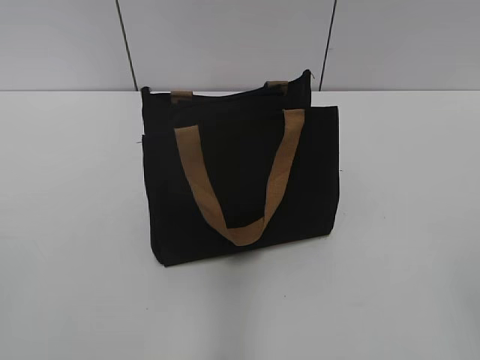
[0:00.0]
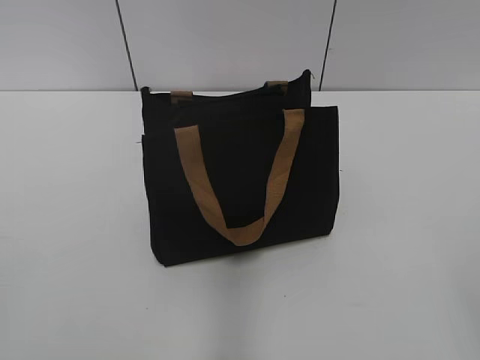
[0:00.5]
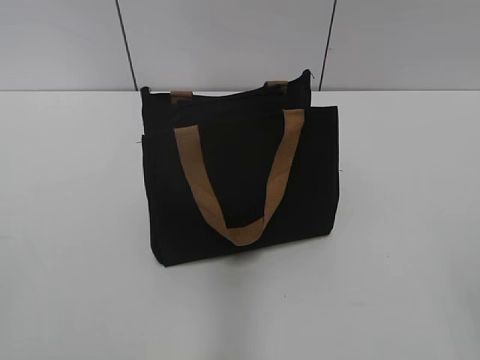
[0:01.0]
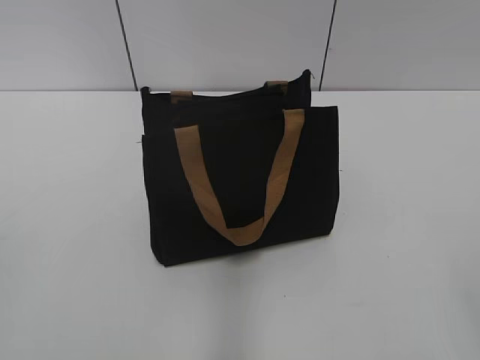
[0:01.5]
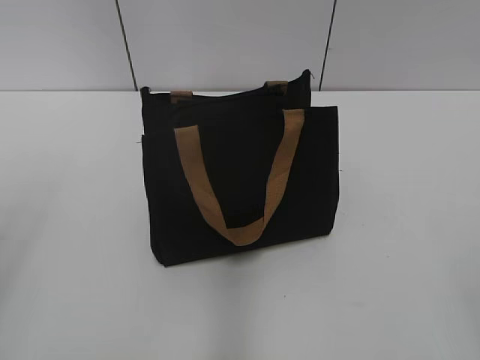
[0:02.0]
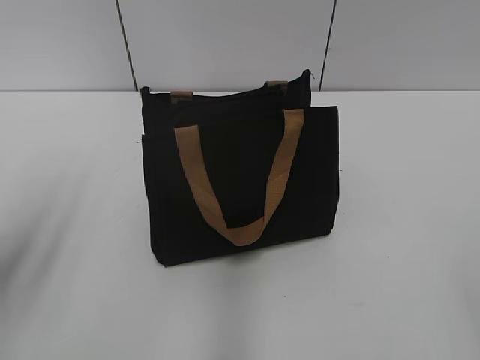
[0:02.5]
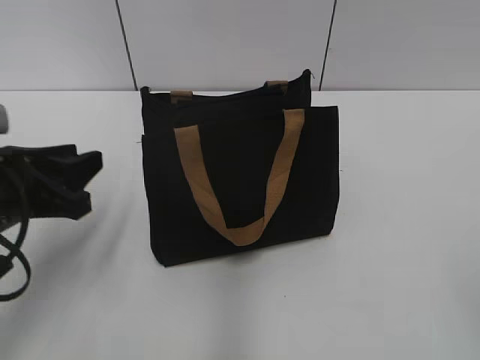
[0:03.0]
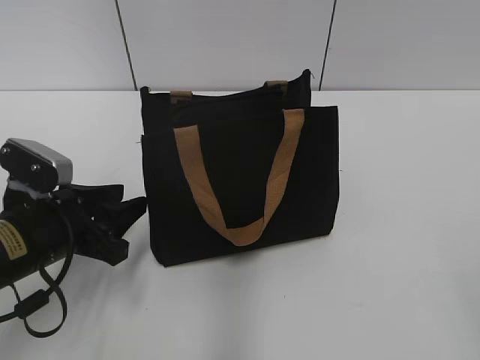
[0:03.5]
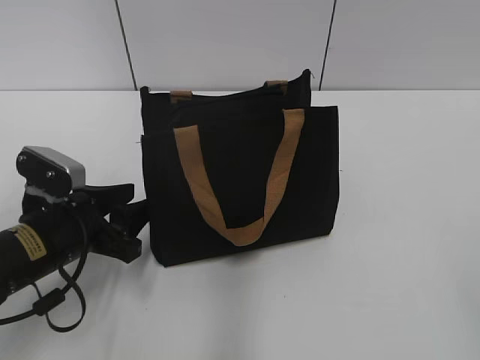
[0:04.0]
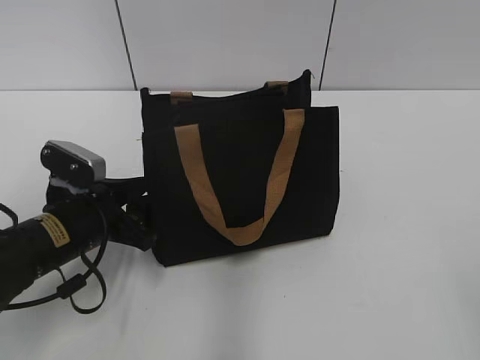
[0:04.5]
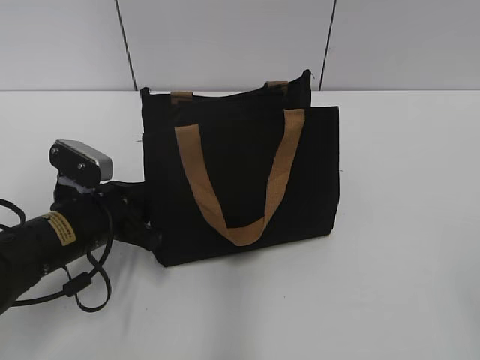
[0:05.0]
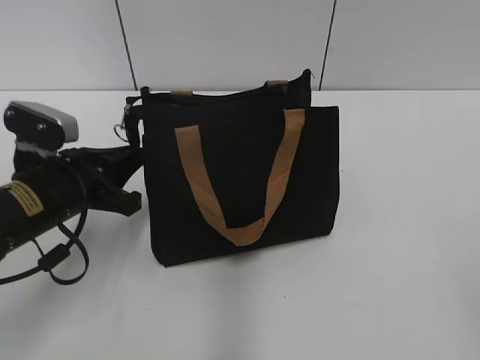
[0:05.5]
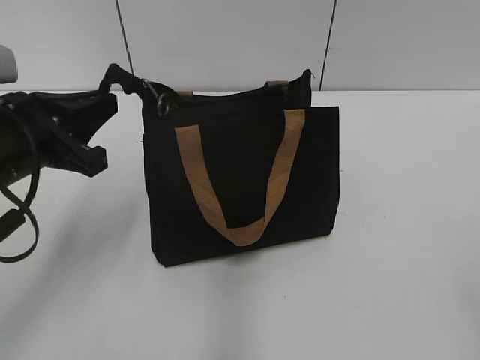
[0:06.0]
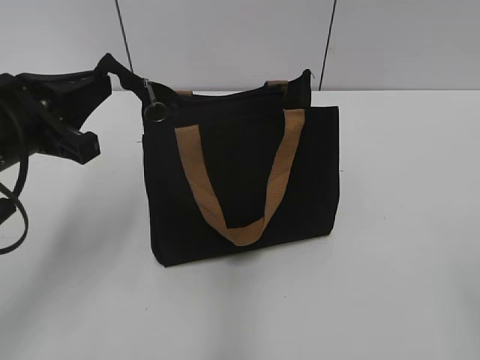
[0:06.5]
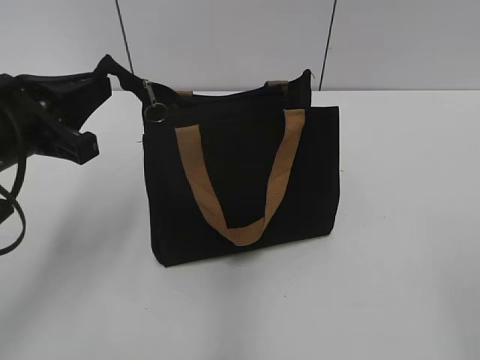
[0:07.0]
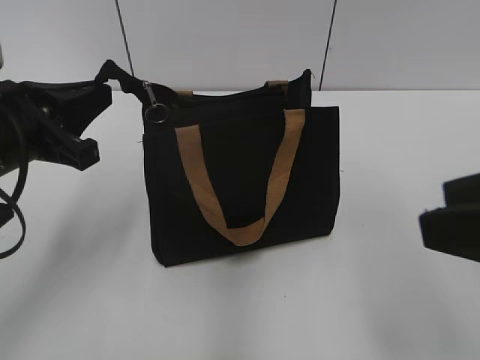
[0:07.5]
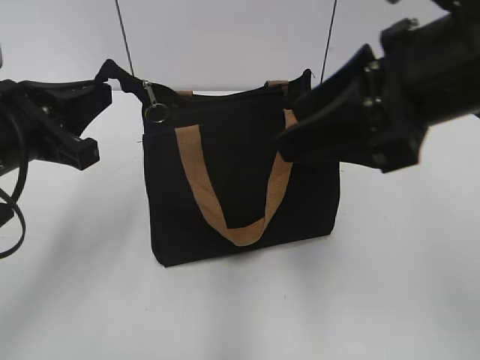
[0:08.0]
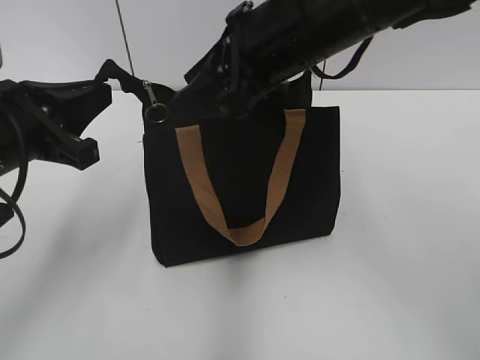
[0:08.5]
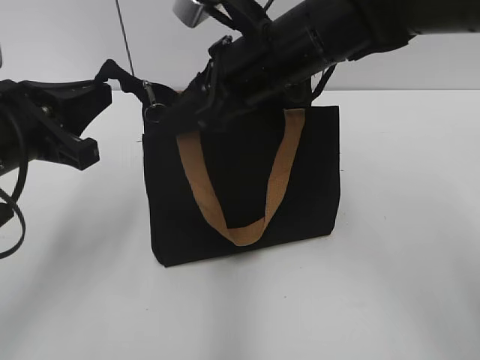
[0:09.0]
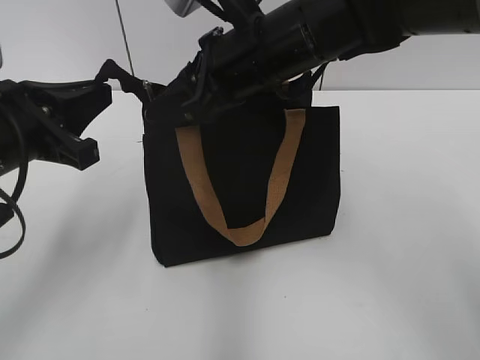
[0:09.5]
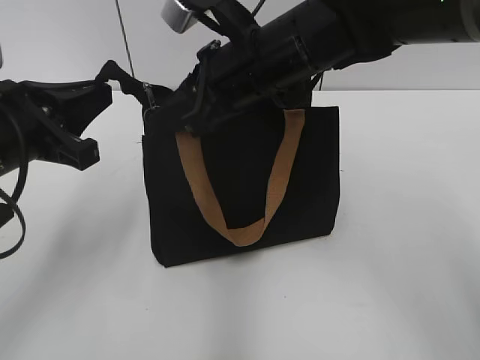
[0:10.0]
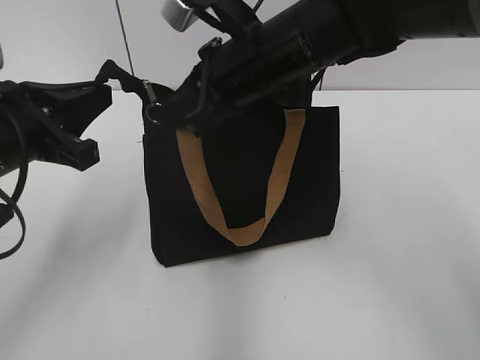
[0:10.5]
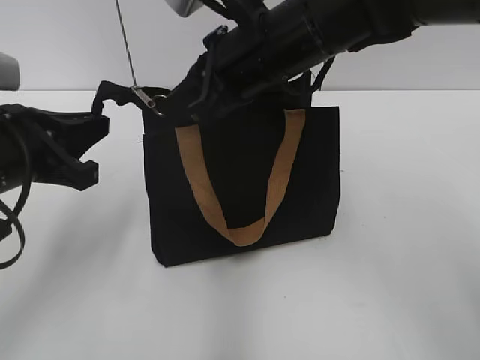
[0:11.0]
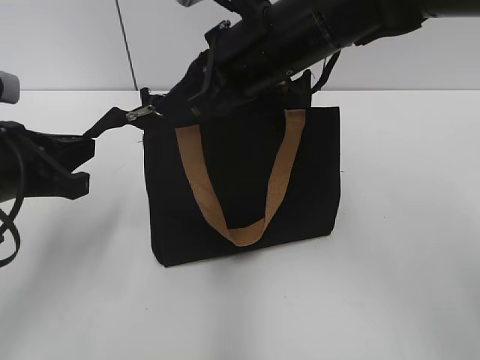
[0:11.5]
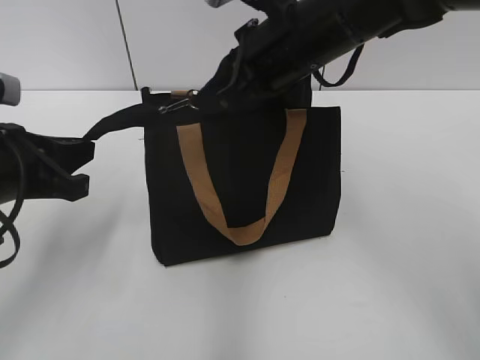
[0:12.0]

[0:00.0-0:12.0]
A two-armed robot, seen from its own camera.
0:02.0 to 0:04.0: The left gripper heads downward, forward and to the right, covering roughly 30 cm, and opens its fingers.
0:04.0 to 0:06.0: The left gripper heads upward, covering about 10 cm, and closes up.
0:06.0 to 0:08.0: The right gripper goes some 25 cm forward and to the left.
0:08.0 to 0:10.0: The right gripper goes roughly 20 cm forward, to the left and downward, and closes.
0:10.0 to 0:12.0: The right gripper closes.

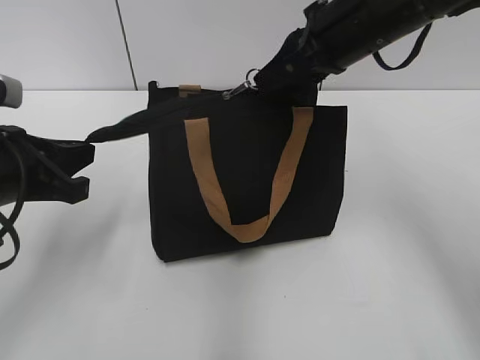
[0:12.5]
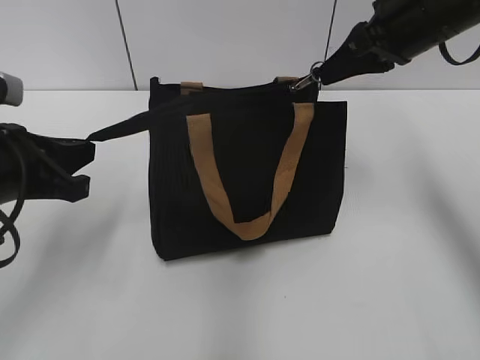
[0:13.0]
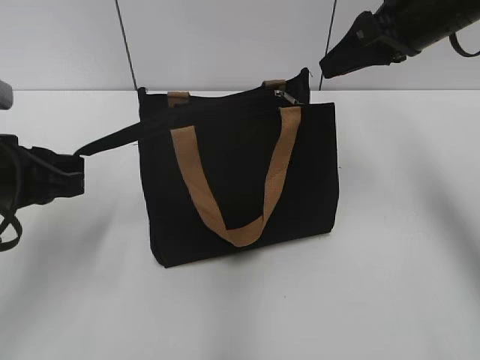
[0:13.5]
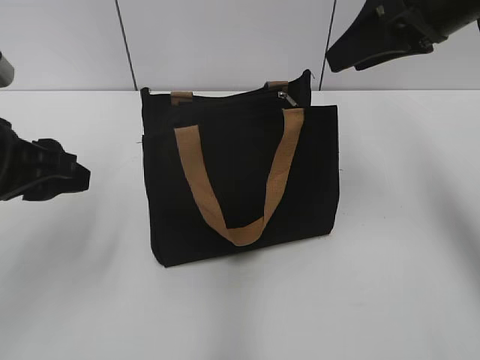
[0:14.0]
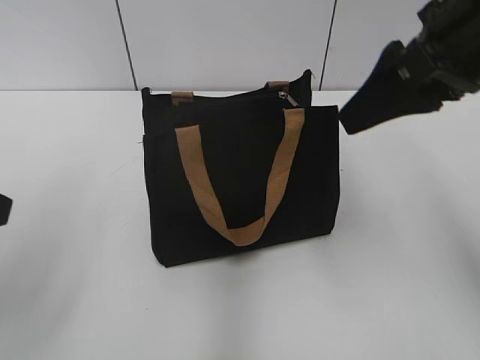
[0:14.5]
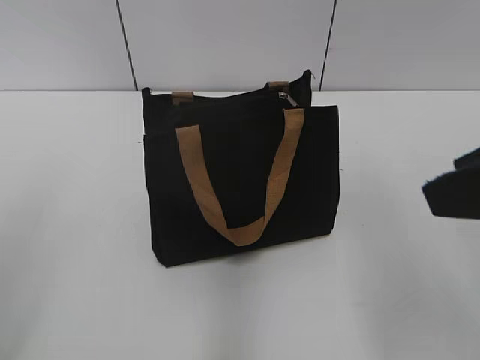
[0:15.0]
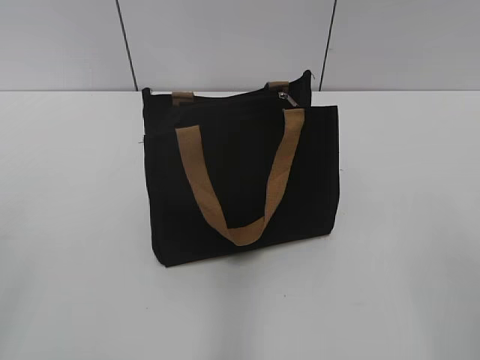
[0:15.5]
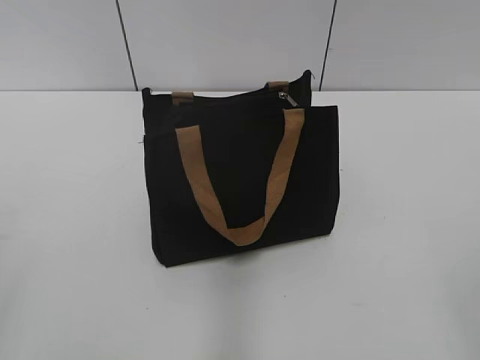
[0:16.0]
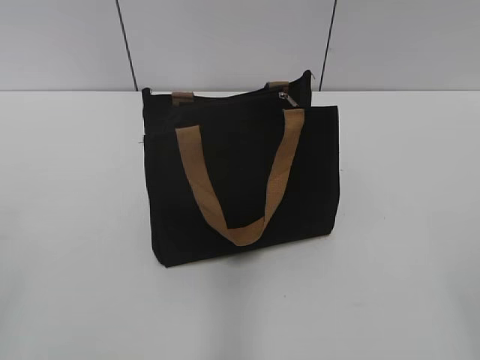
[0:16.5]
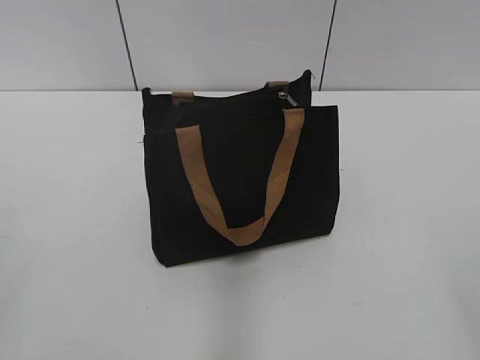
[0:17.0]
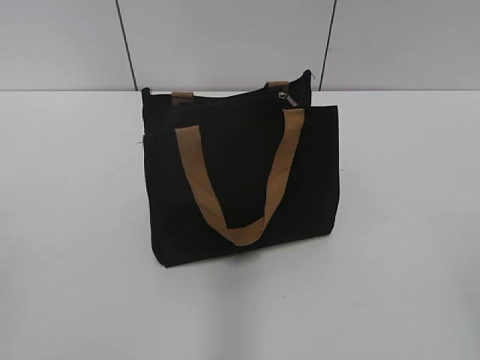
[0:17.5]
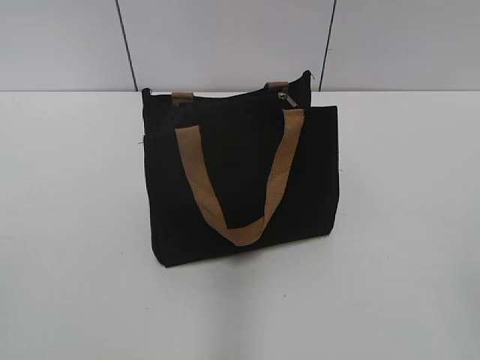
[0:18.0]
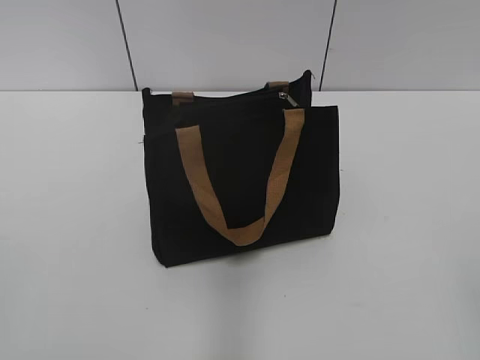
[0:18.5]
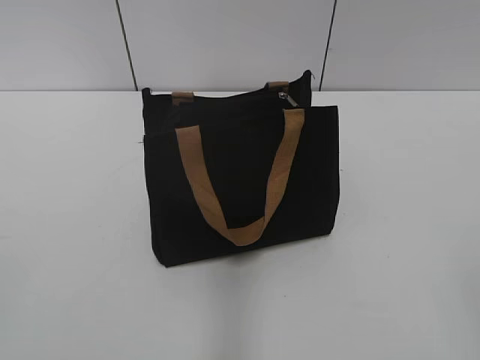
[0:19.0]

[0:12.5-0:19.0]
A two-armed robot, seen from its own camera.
0:12.5 to 0:14.5: The left gripper is displaced upward and backward by approximately 10 cm, and opens. Meanwhile the right gripper heads backward, to the right and upward, covering about 10 cm, and opens its fingers.
0:14.5 to 0:17.0: The right gripper moves backward, approximately 30 cm.

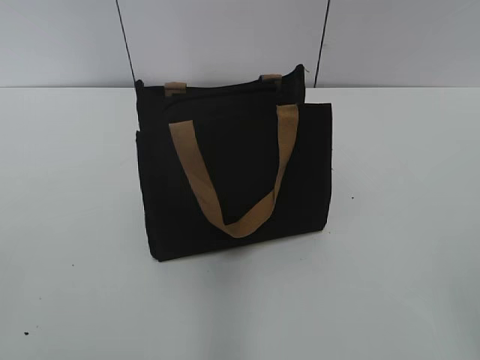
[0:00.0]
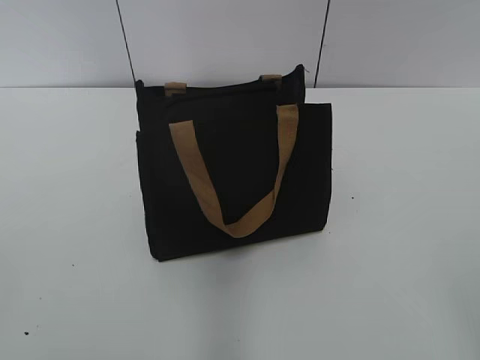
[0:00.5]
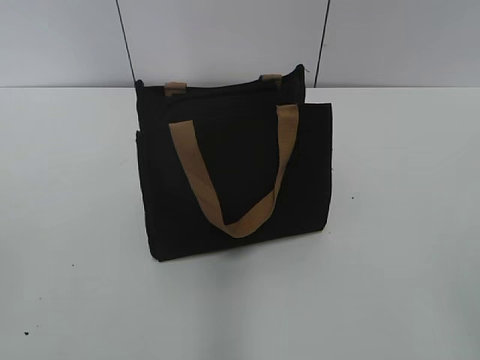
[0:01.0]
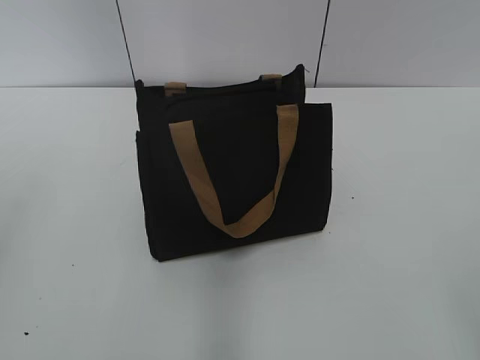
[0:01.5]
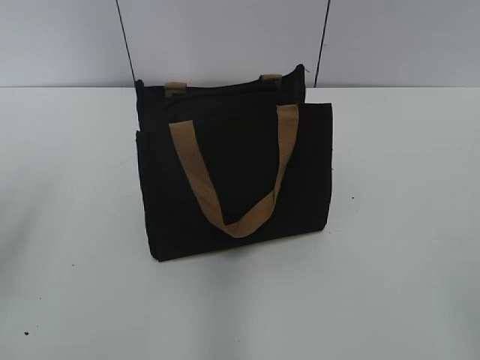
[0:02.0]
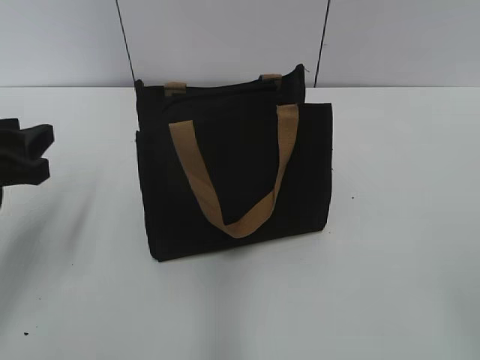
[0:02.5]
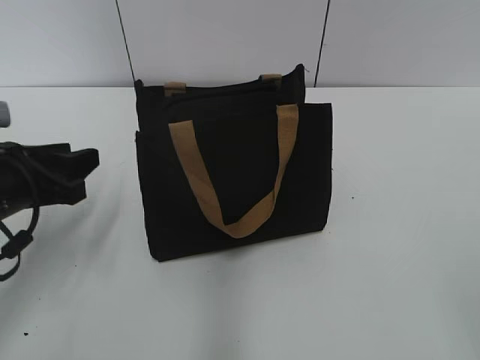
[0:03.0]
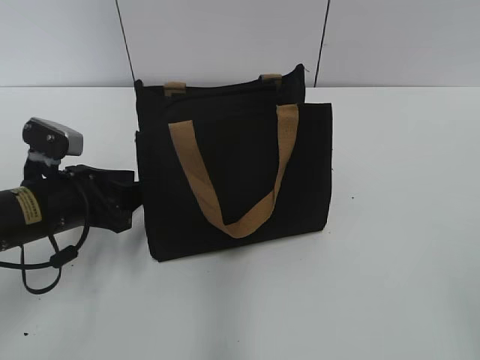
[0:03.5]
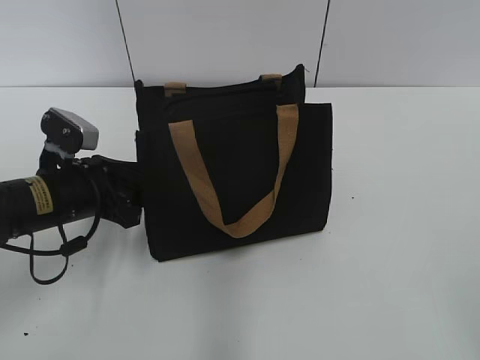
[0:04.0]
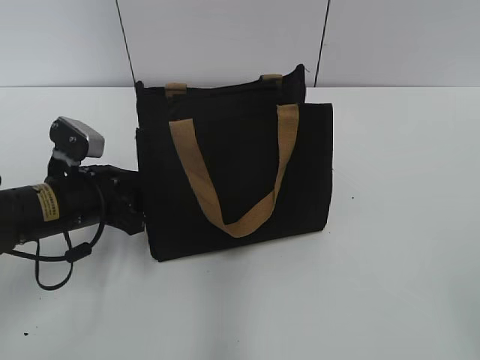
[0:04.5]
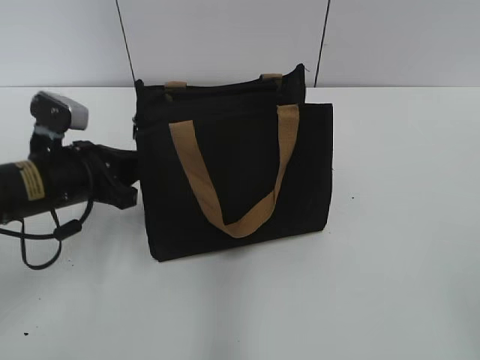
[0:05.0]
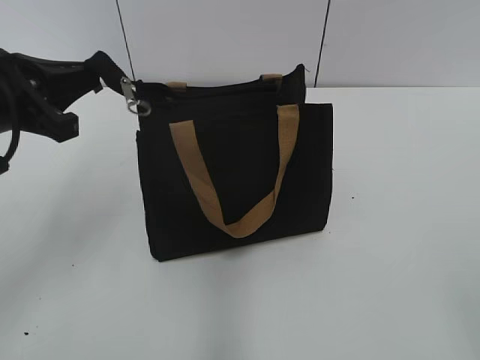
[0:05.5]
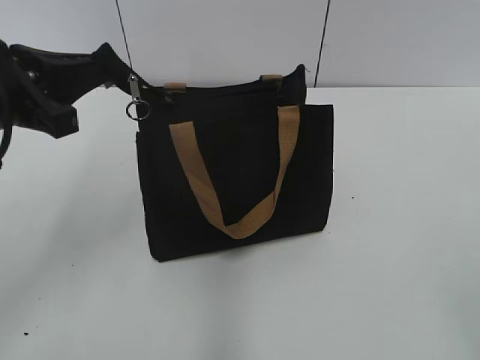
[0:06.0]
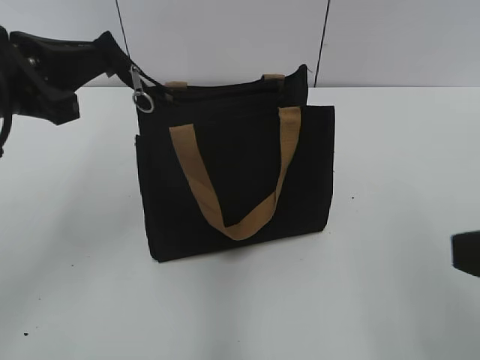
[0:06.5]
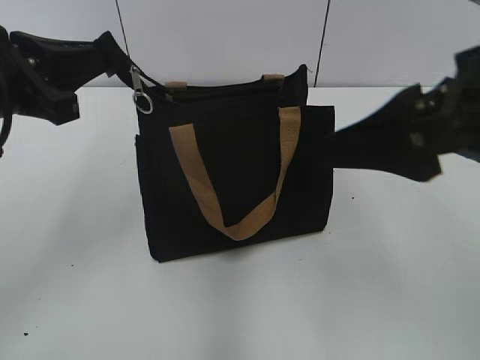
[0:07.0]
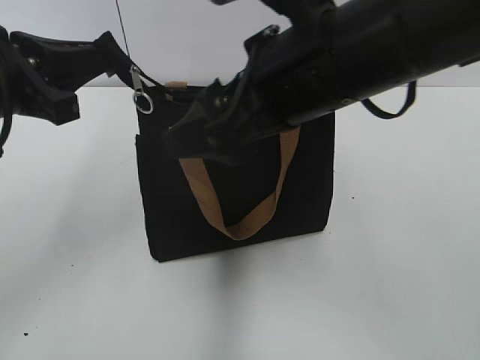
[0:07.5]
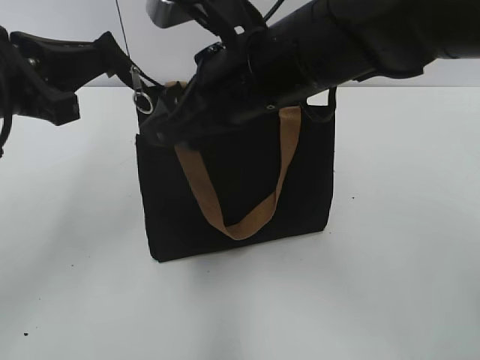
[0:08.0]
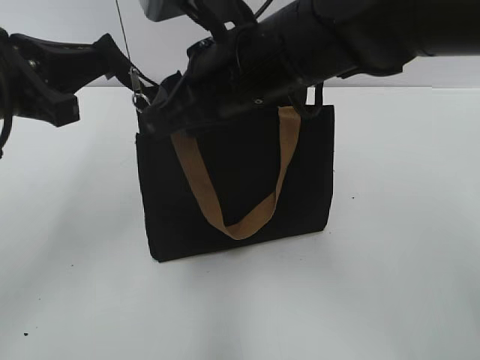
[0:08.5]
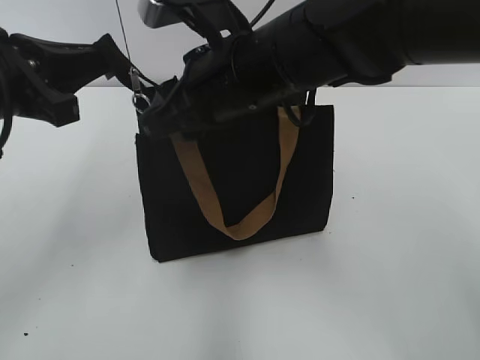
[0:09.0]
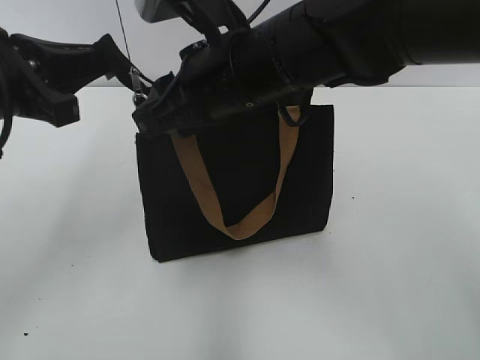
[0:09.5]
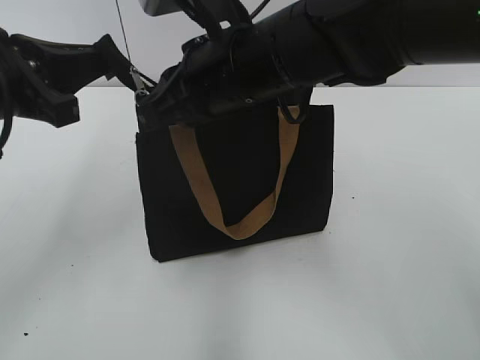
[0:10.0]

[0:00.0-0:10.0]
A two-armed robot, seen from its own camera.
0:02.0 to 0:04.0: The left gripper is displaced downward, forward and to the right by approximately 20 cm.
0:04.0 to 0:06.0: The left gripper moves upward, about 15 cm, and closes up.
0:06.0 to 0:08.0: The right gripper shifts roughly 40 cm forward and to the left.
0:08.0 to 0:10.0: The right gripper closes up.
